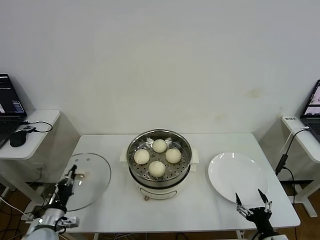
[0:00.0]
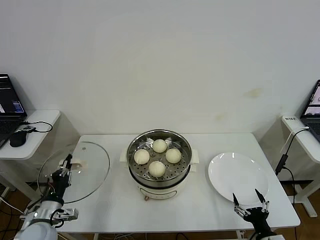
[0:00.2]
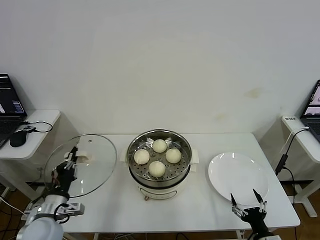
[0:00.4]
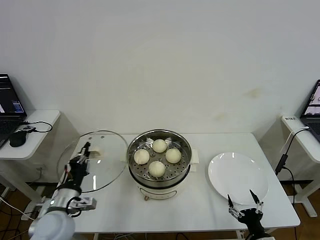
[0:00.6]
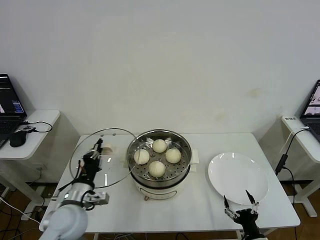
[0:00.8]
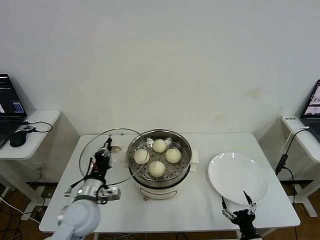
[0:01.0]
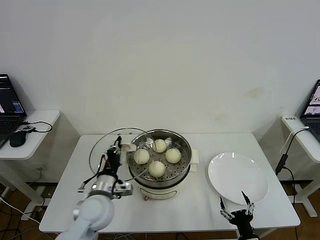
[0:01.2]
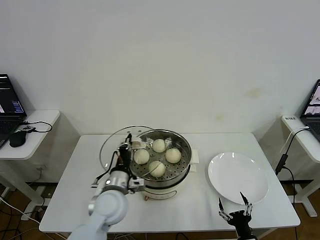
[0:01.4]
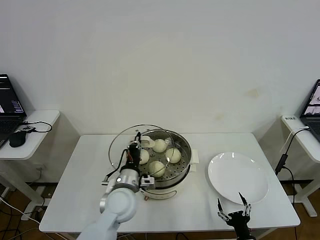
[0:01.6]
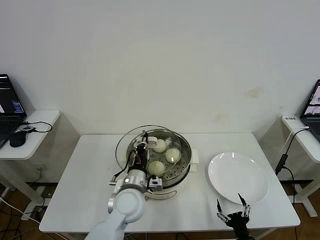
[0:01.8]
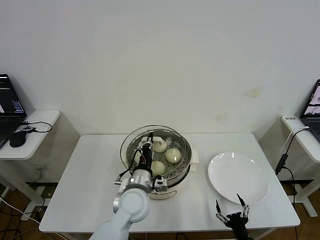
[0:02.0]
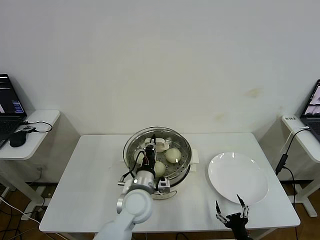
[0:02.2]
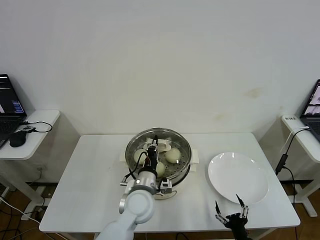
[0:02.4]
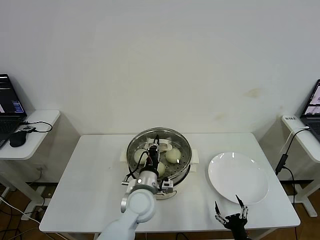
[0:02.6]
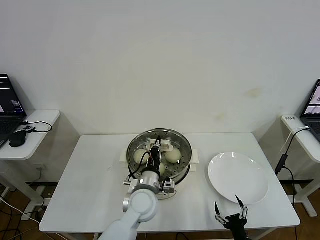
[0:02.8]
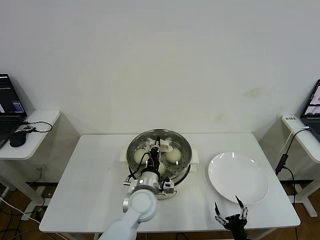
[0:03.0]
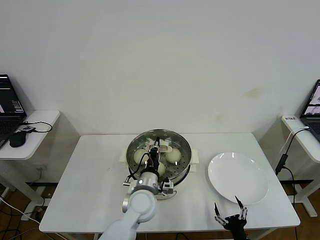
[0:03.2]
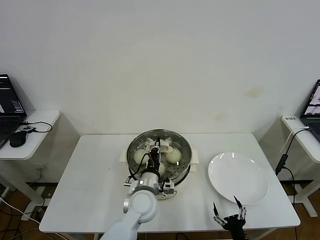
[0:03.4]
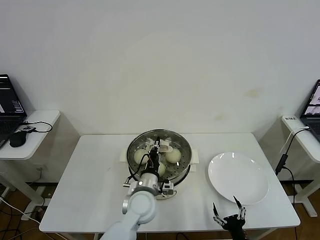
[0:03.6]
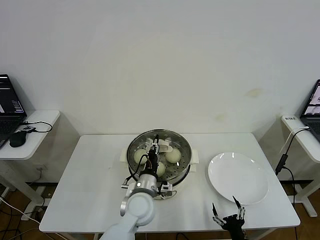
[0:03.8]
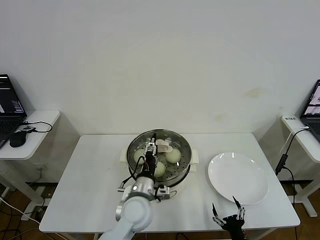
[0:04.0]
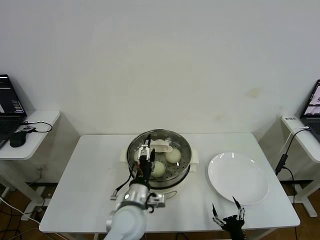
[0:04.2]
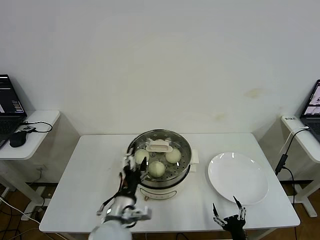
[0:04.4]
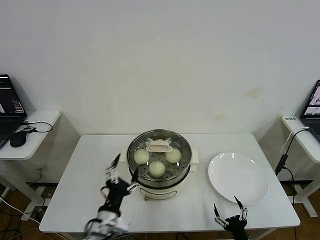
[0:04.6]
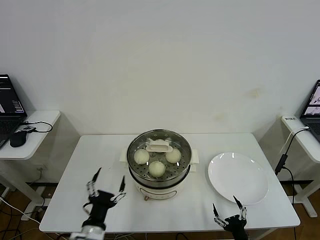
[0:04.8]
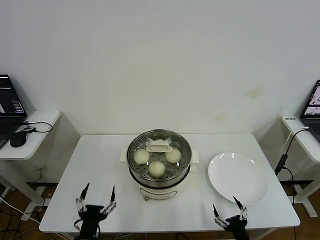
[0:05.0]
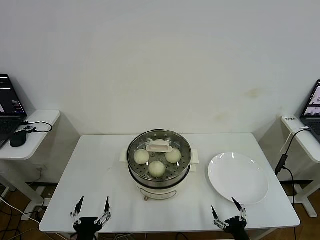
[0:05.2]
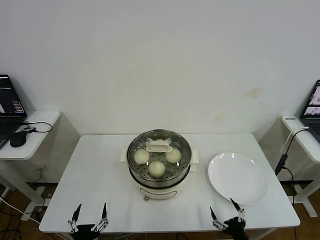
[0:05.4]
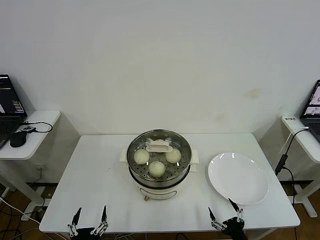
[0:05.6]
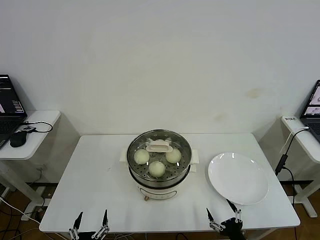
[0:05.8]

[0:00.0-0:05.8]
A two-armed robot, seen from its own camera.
Step, 0:00.0 to 0:04.0: Place the pot lid on the steamer with left gripper.
0:00.0 to 0:01.4: The left gripper travels to the right and upward by about 25 cm; the right gripper shifts about 5 cm to the left.
0:01.4 to 0:02.8: The left gripper is displaced to the right by roughly 10 cm.
0:02.8 to 0:04.4: The left gripper shifts approximately 10 cm backward and to the left, and opens.
0:04.4 to 0:05.8: The left gripper moves backward, to the left and downward, approximately 25 cm.
